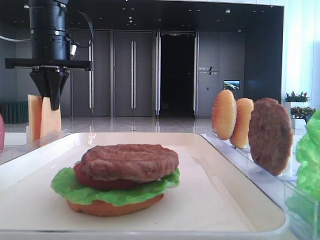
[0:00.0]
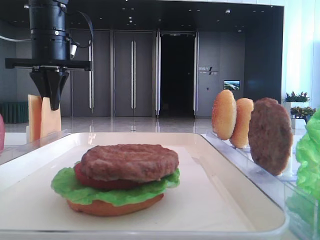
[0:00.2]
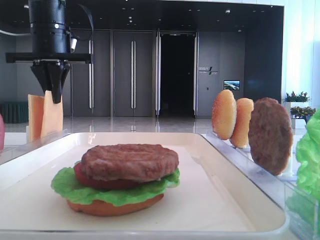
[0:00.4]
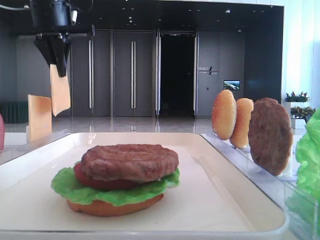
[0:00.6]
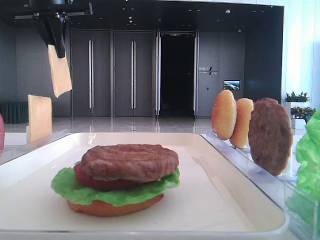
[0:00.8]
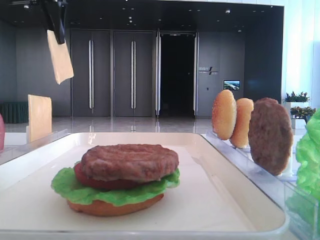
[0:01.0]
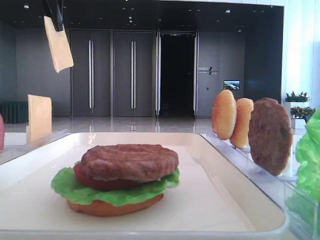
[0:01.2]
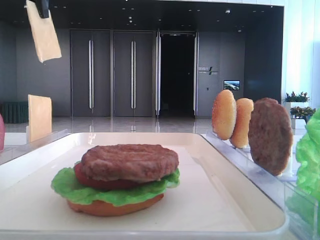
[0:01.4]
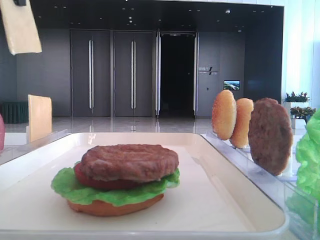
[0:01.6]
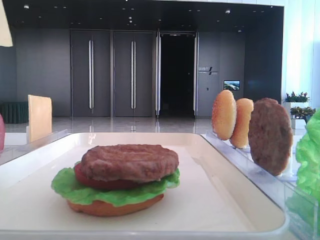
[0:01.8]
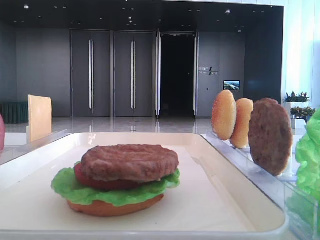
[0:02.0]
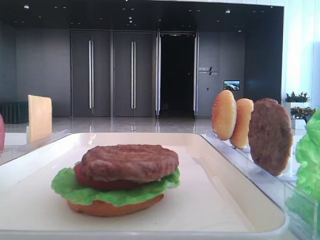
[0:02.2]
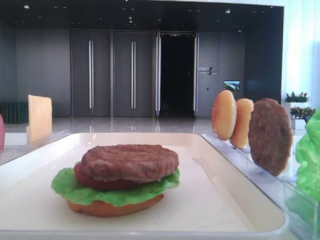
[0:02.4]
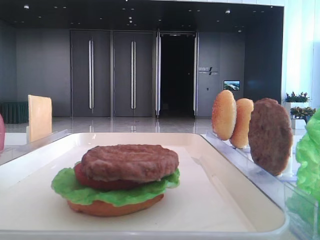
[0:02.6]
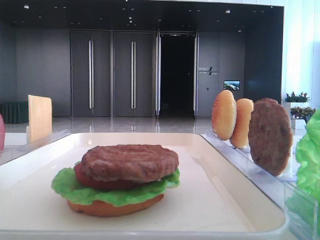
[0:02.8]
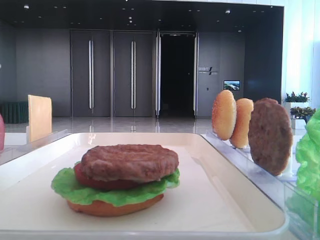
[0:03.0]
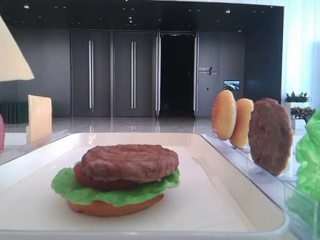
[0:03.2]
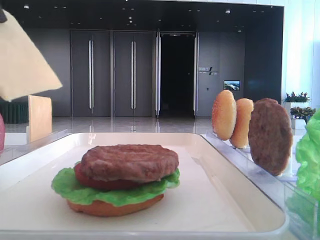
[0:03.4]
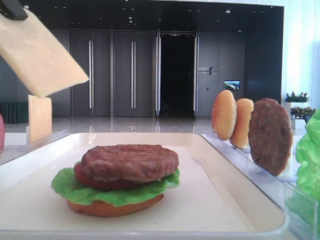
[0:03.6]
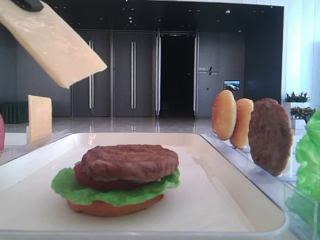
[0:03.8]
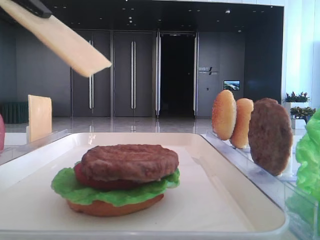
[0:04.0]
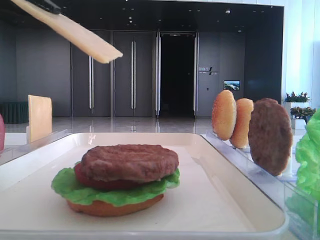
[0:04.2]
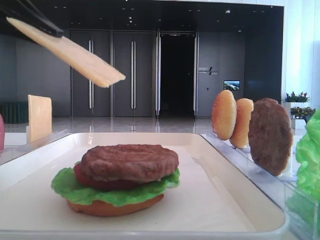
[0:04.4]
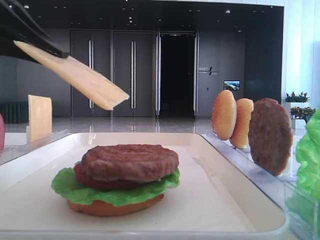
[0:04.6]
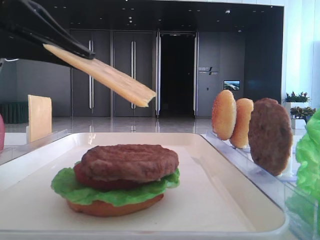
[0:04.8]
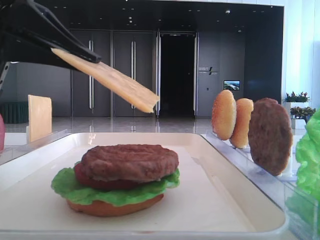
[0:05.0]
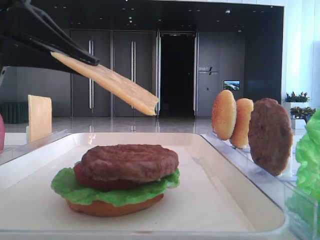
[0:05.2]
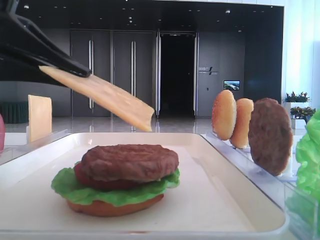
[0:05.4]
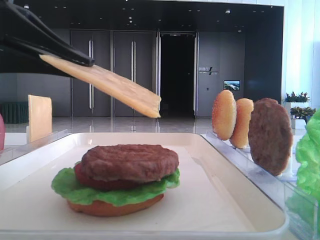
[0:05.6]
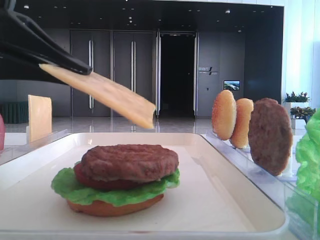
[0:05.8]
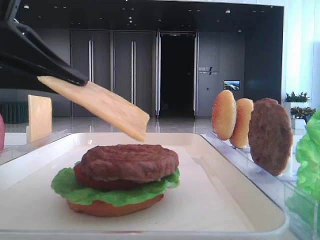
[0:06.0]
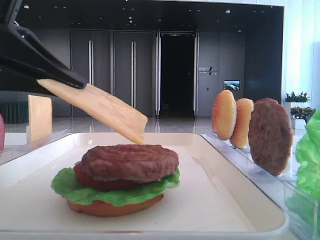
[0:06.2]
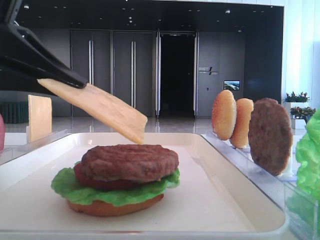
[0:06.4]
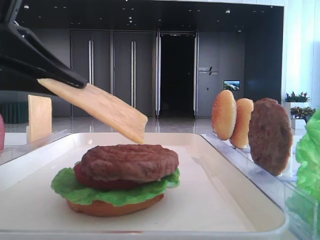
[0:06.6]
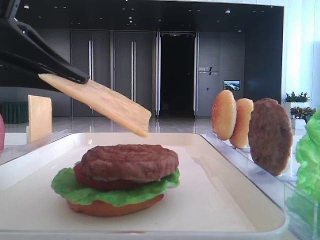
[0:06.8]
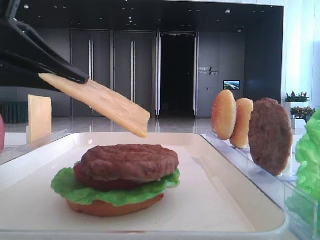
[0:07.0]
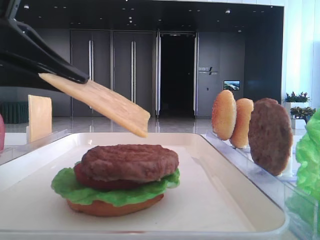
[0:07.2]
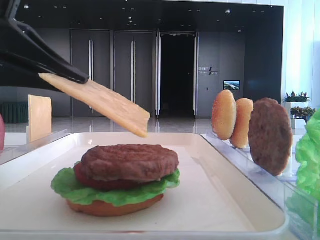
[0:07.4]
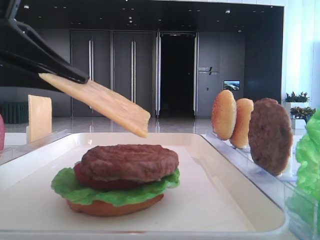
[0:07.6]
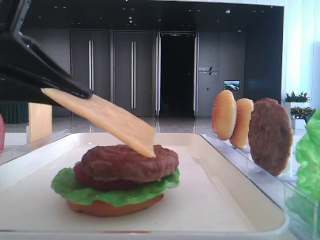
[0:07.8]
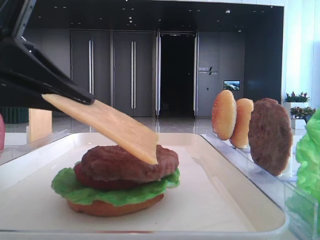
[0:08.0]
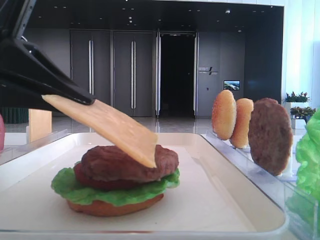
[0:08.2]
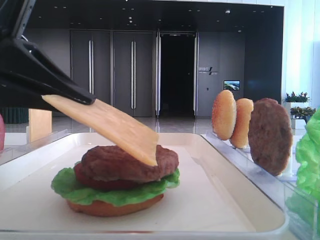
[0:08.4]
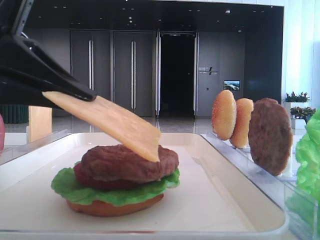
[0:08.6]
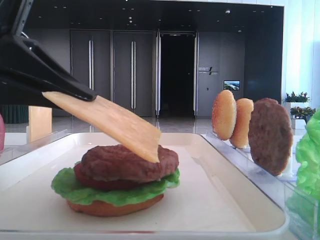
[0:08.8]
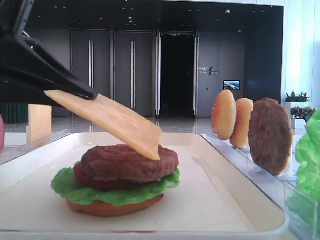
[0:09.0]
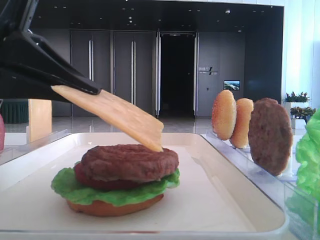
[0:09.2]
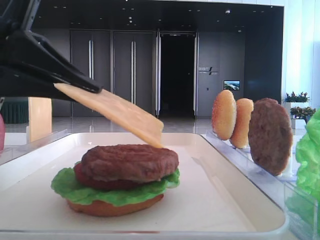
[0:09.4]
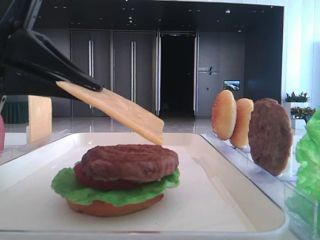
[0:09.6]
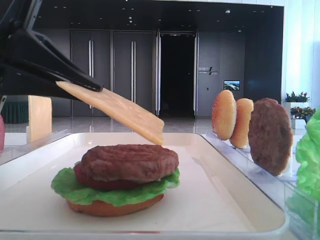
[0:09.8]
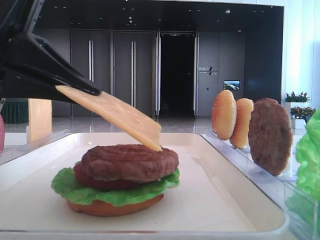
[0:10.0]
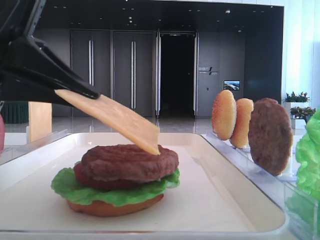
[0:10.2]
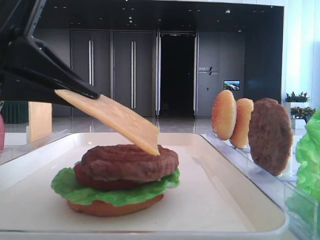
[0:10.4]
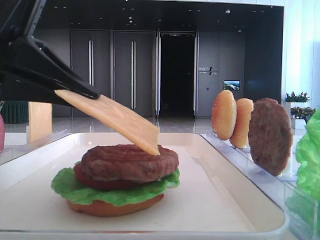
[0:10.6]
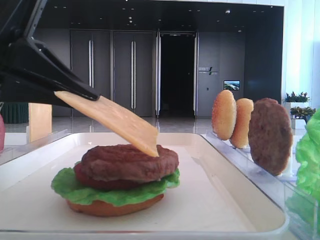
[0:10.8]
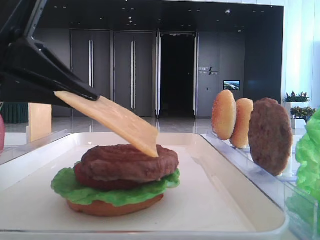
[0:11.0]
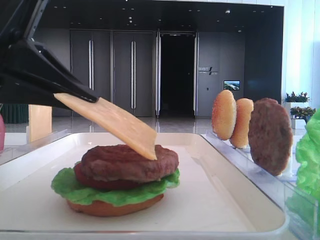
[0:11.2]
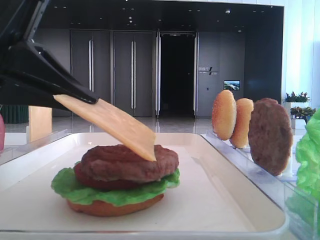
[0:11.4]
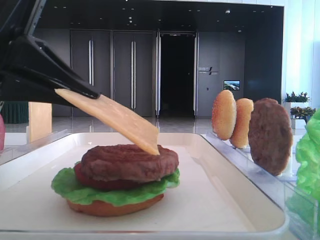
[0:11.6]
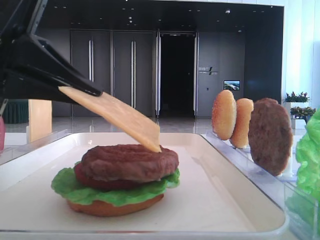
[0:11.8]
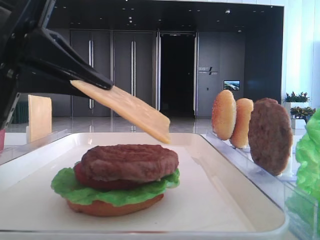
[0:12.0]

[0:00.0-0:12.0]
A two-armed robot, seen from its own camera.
0:00.0 to 0:01.6: The left gripper moves upward and backward, approximately 20 cm.
0:01.6 to 0:03.0: The left gripper moves backward, some 15 cm.
0:03.0 to 0:04.4: The left gripper travels downward by about 10 cm.
0:04.4 to 0:06.0: The left gripper moves downward, roughly 5 cm.
0:06.0 to 0:07.6: Both grippers stay put.
0:07.6 to 0:09.0: There are only small adjustments of the grippers.
0:09.0 to 0:10.4: Neither gripper changes place.
0:10.4 to 0:12.0: Neither gripper changes place.

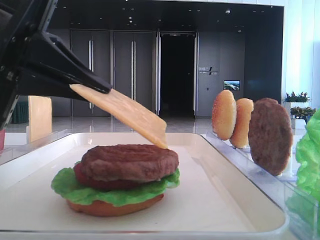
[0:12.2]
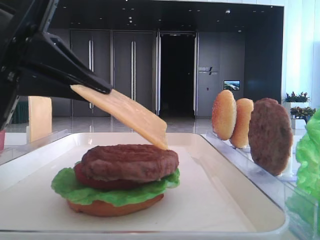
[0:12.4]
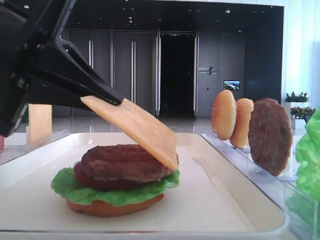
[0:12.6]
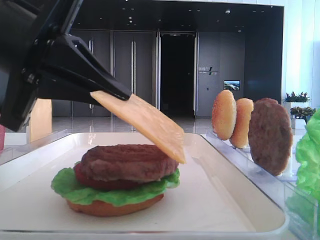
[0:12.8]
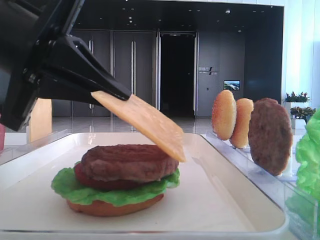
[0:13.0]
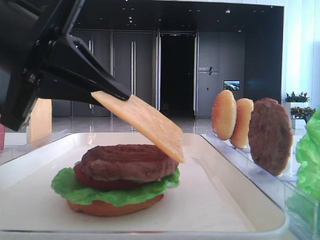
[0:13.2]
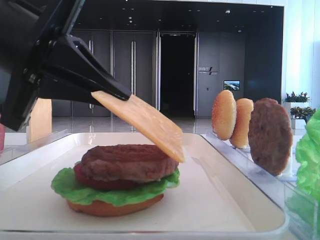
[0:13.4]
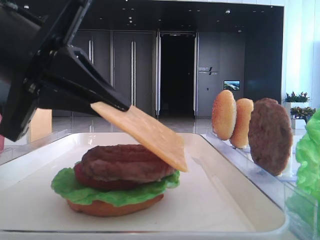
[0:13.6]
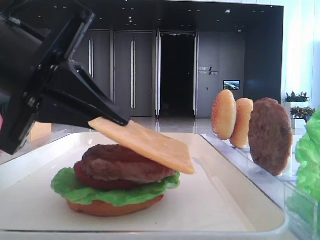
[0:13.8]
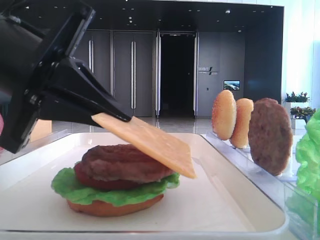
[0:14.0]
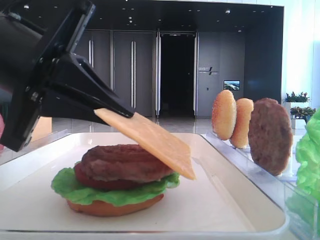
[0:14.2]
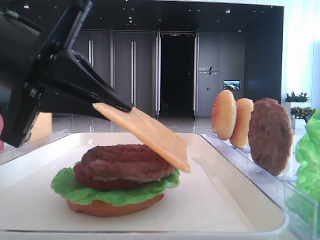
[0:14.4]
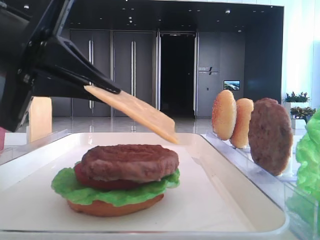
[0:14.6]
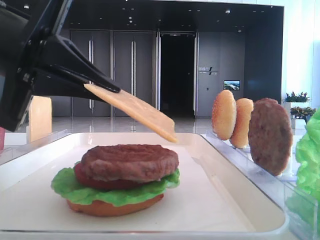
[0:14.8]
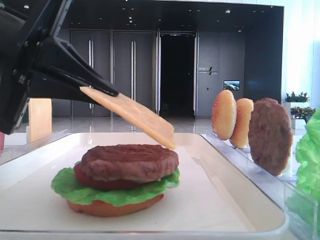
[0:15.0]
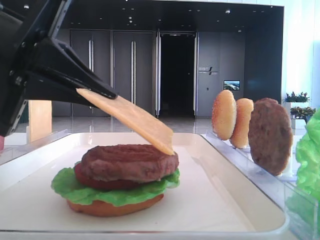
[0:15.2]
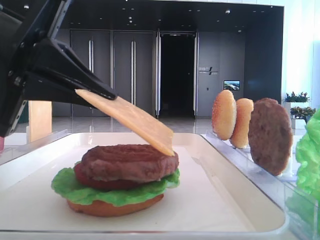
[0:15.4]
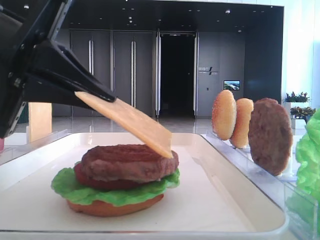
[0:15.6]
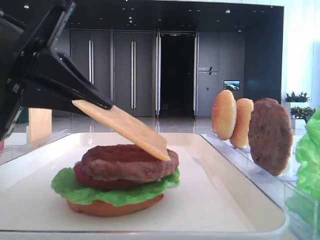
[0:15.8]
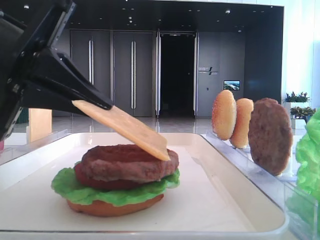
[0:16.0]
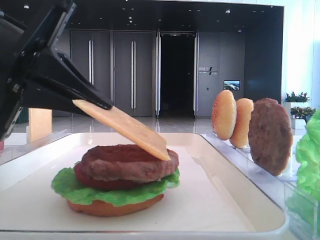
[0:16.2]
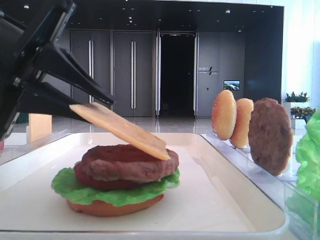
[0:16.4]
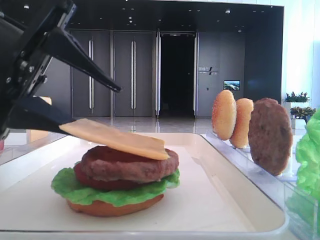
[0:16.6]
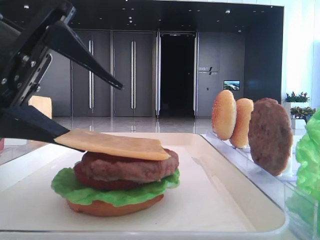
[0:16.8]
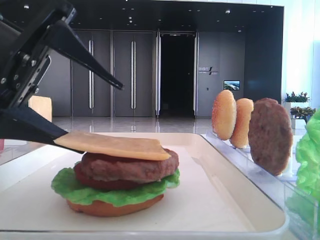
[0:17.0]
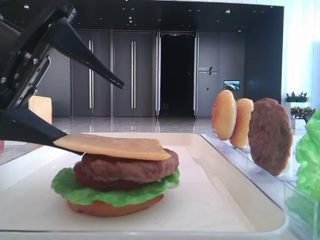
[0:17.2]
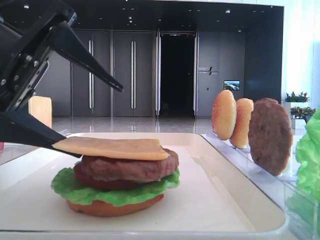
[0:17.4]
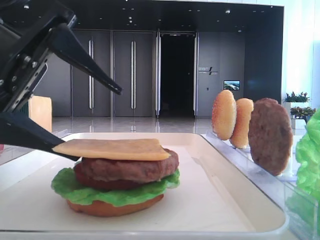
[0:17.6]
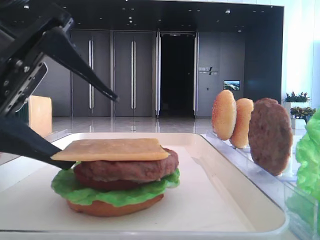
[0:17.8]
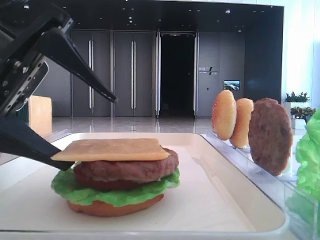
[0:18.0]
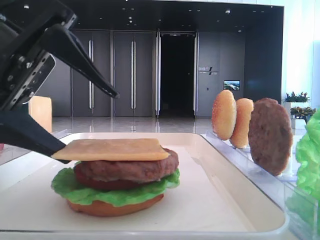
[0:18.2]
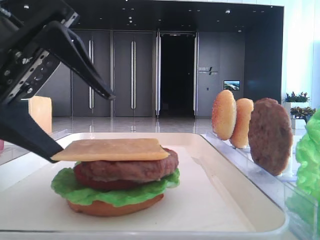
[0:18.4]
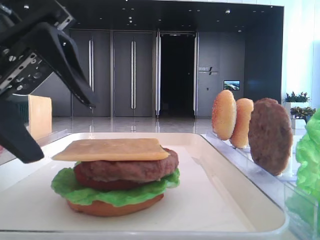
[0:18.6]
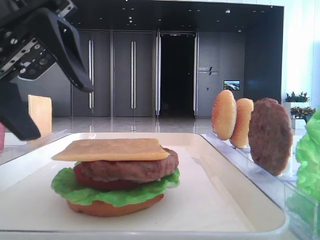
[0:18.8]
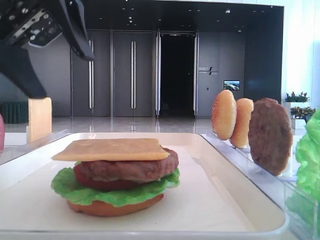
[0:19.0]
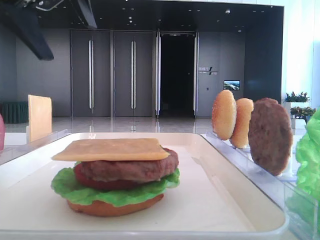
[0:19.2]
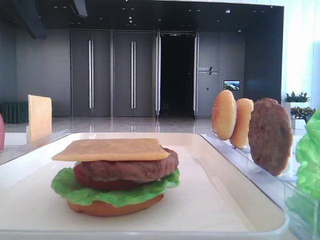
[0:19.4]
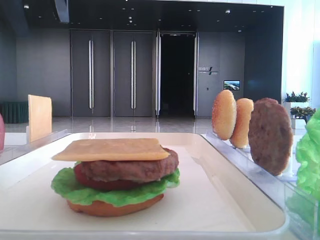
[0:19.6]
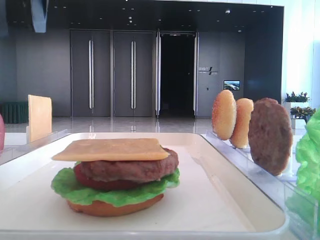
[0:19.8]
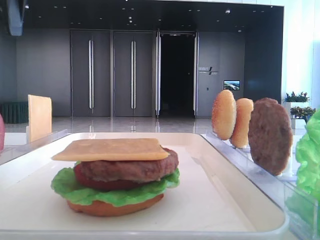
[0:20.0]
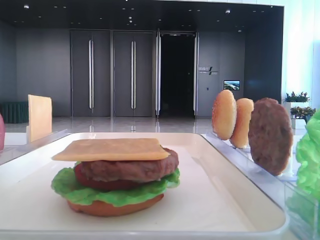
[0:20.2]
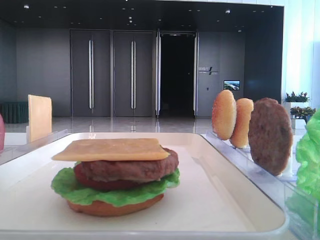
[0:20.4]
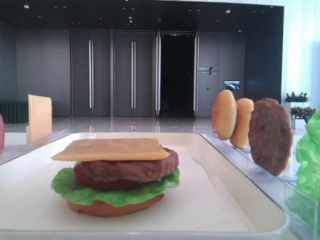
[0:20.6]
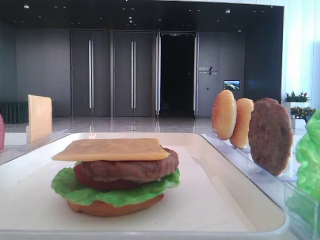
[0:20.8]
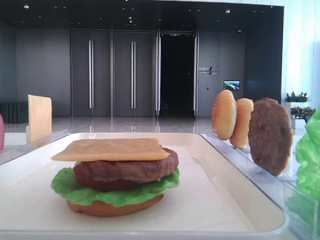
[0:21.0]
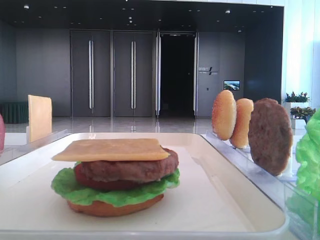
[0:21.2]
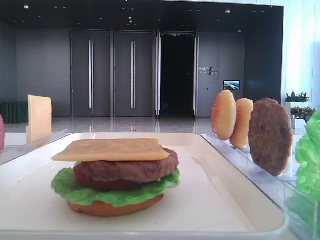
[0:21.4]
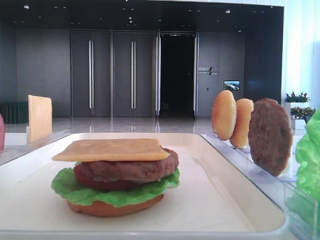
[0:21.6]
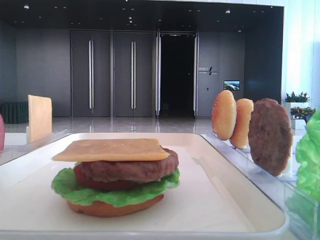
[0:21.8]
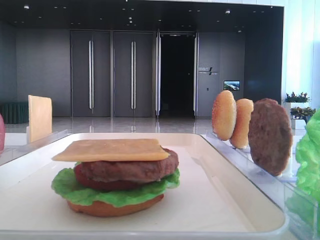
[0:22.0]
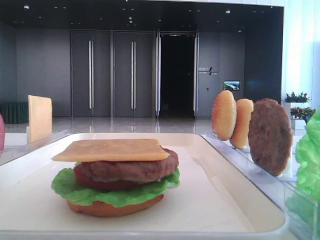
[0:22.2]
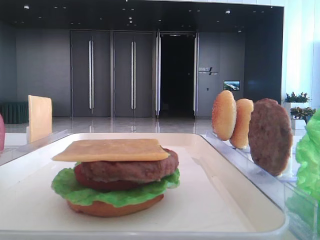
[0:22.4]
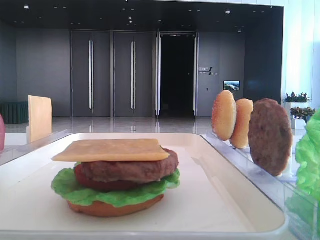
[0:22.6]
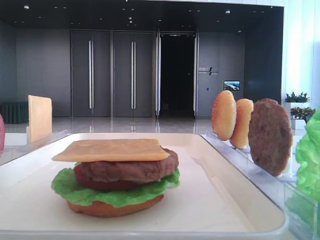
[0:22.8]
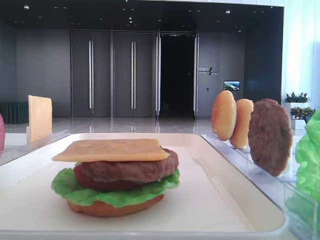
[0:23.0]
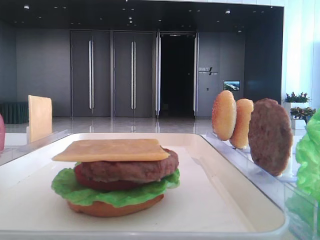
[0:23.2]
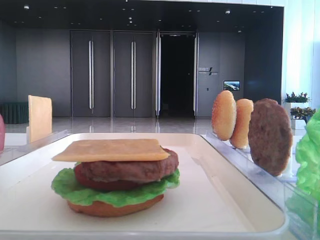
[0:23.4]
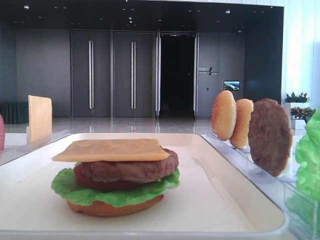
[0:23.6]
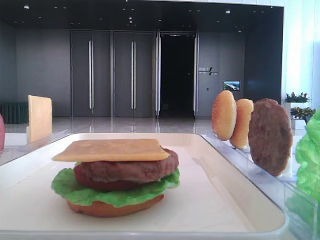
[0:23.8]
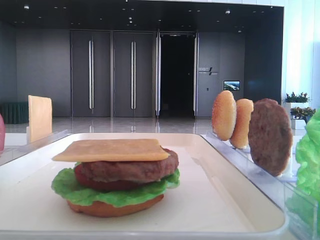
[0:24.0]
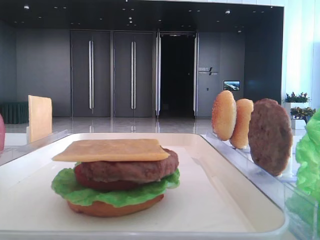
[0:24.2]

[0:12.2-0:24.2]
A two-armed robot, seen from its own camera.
Step, 0:12.2 to 0:18.0: Place the cheese slice on the patty with the left hand.
0:12.2 to 0:15.2: The grippers stay close to where they were, moving slightly.
0:15.2 to 0:16.6: The left gripper opens its fingers.
0:16.6 to 0:18.2: There are only small adjustments of the grippers.
0:18.2 to 0:19.8: The left gripper moves upward and forward, about 20 cm.
0:19.8 to 0:21.2: The left gripper travels upward, backward and to the left by about 15 cm.
0:22.6 to 0:24.2: The two grippers keep their place.
